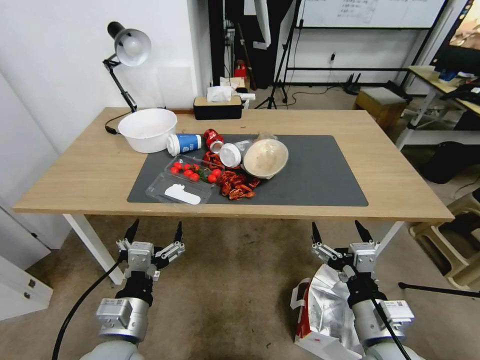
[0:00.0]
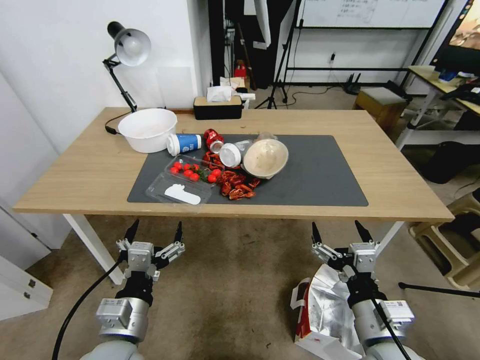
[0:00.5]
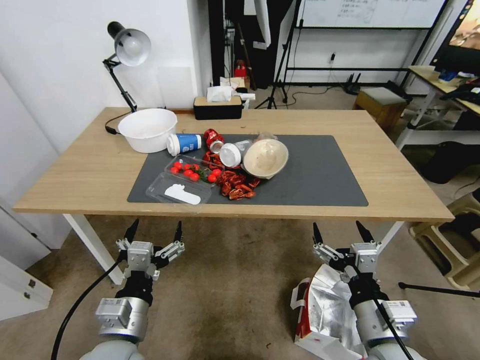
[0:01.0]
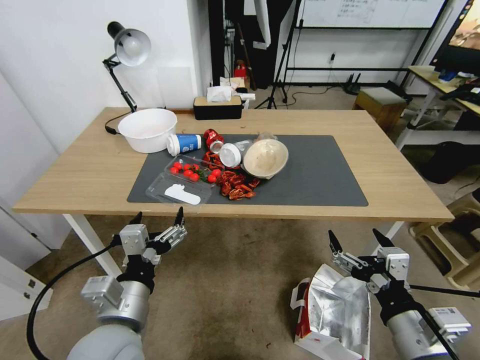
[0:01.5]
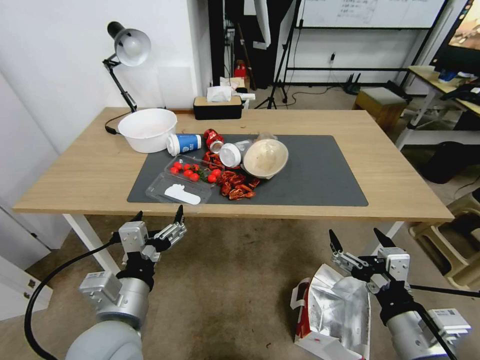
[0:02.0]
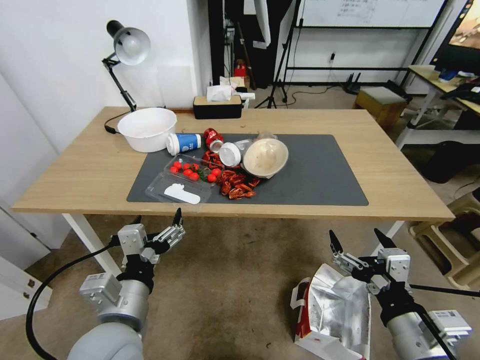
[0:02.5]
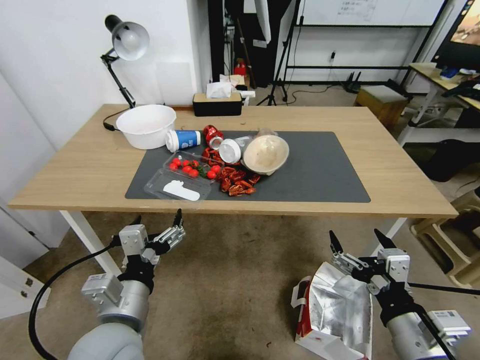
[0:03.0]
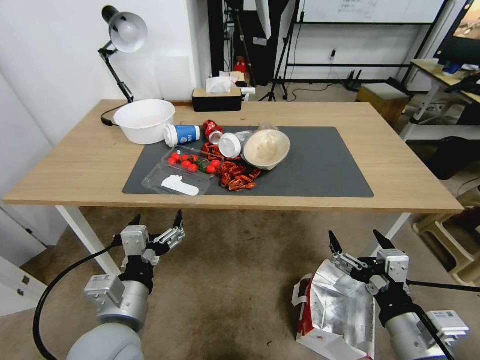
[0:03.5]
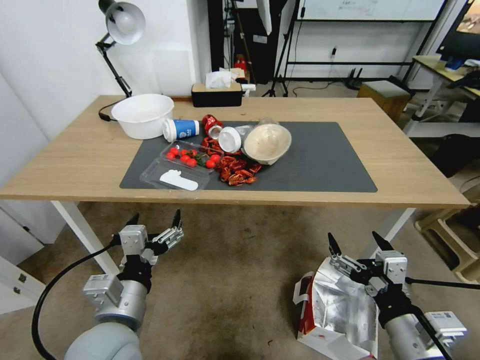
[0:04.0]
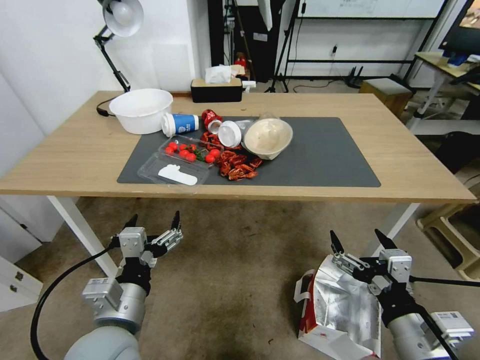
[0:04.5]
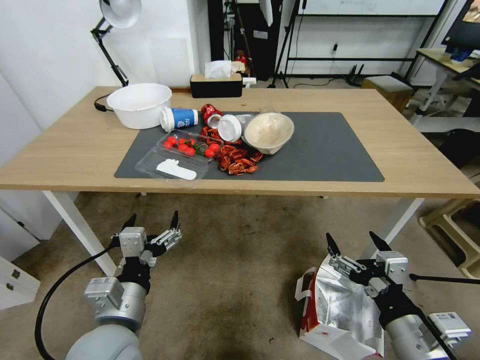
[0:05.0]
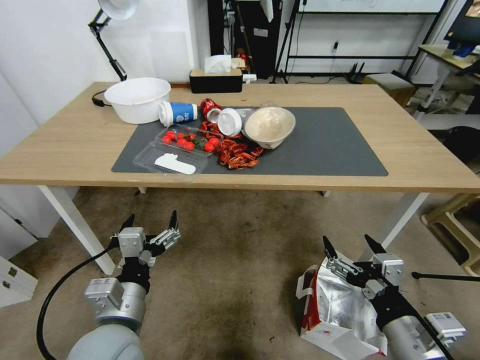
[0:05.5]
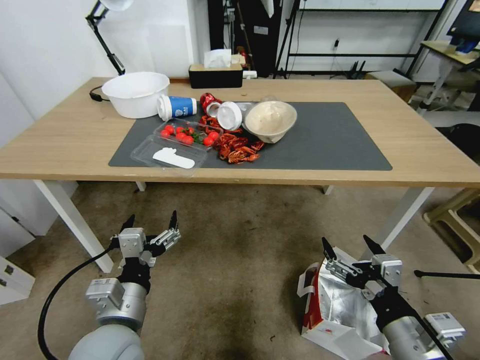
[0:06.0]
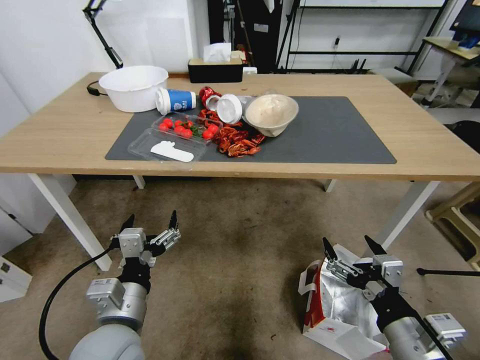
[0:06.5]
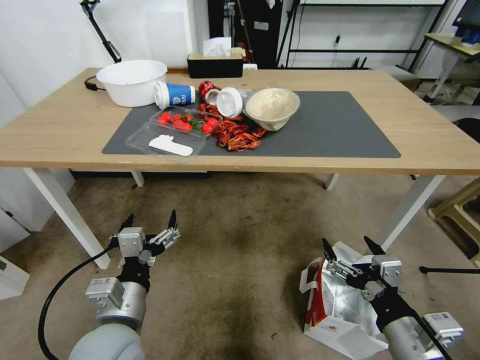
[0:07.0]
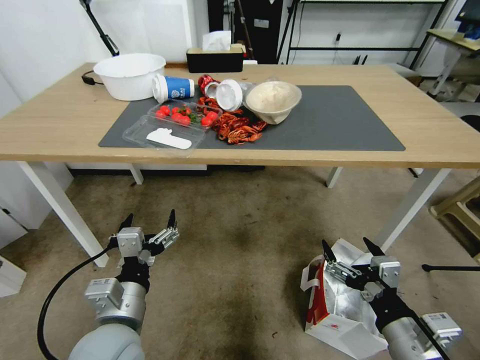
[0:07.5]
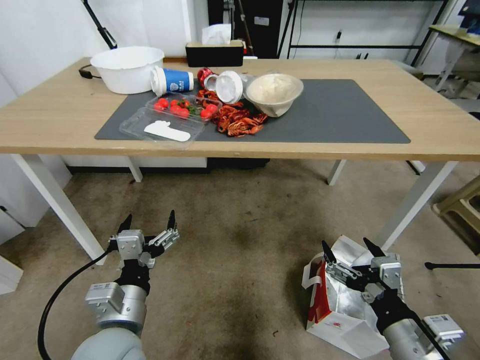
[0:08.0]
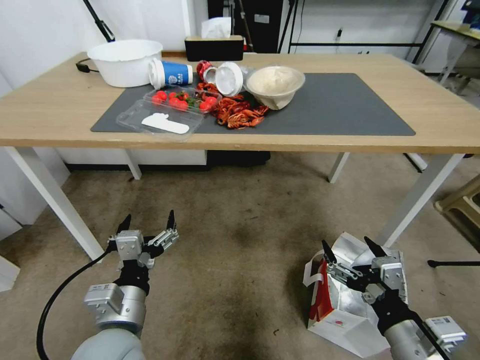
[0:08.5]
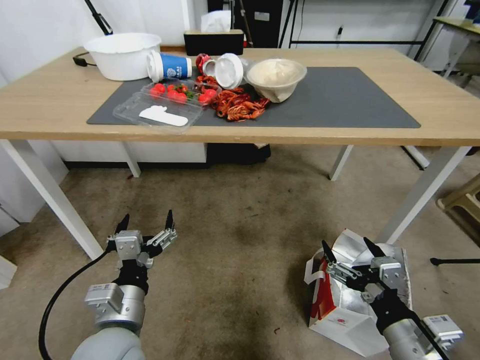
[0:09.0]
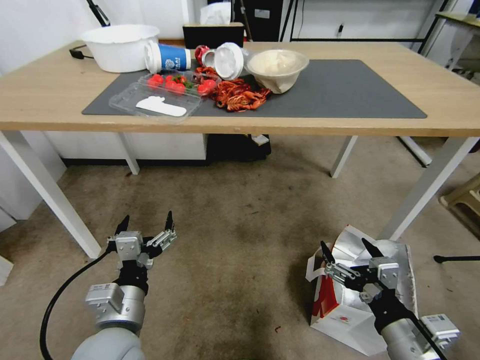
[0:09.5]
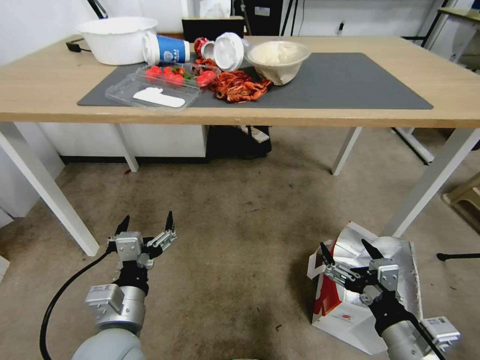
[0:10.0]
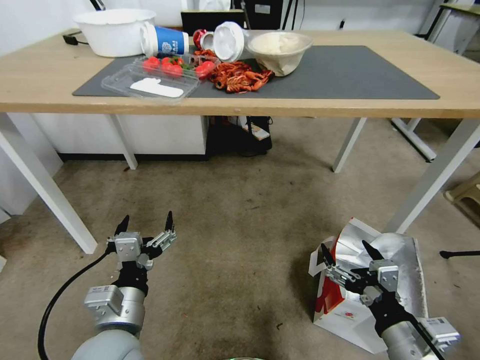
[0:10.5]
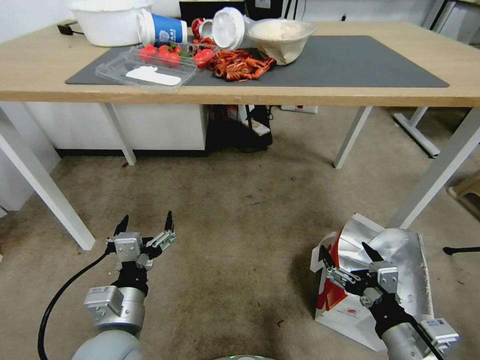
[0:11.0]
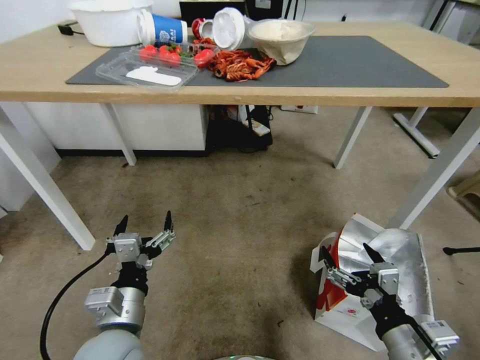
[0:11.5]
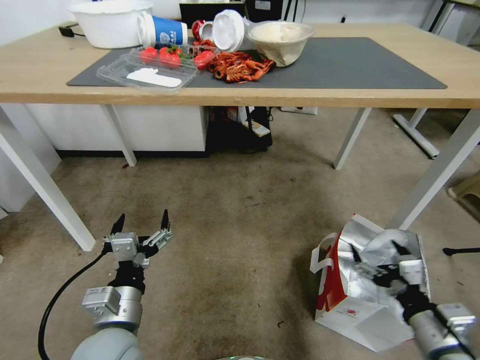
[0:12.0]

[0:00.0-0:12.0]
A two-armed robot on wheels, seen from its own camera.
Task of the whole recording: Pick up the food delivery bag from the floor and place it on the table.
0:10.0 to 0:12.0: The right gripper shifts approximately 5 cm to the right.

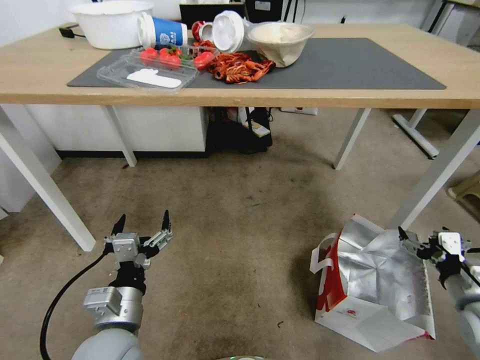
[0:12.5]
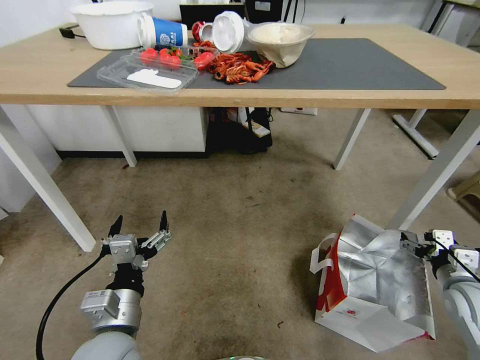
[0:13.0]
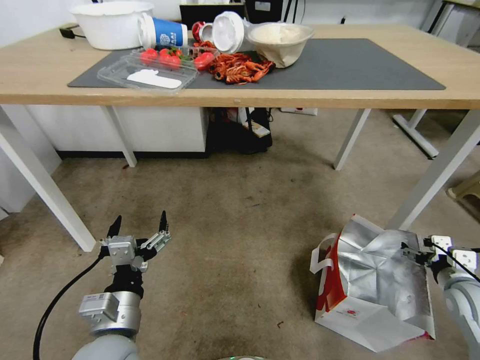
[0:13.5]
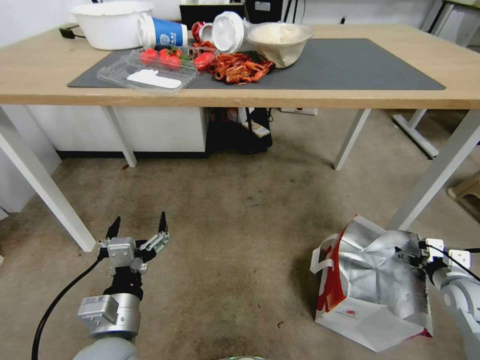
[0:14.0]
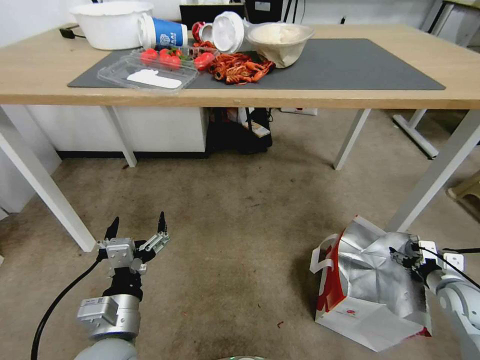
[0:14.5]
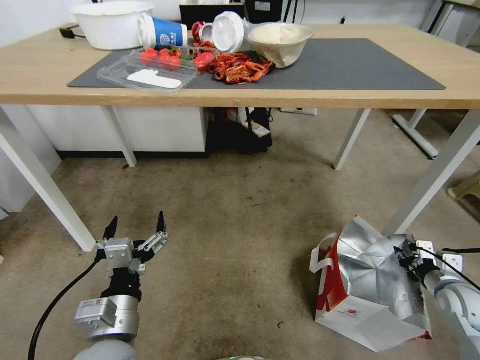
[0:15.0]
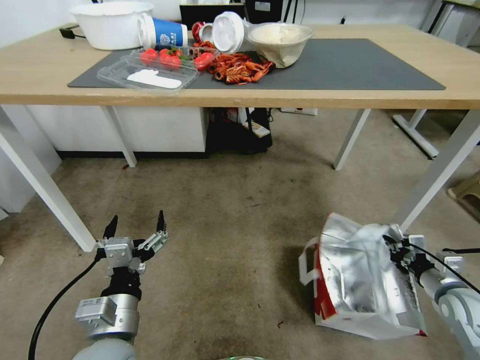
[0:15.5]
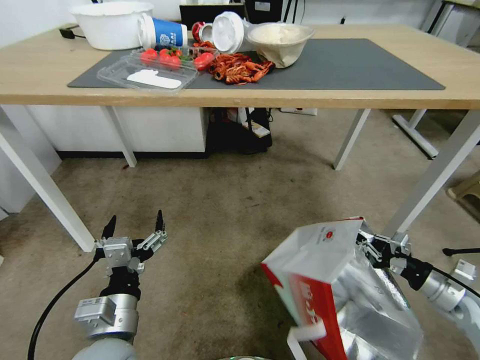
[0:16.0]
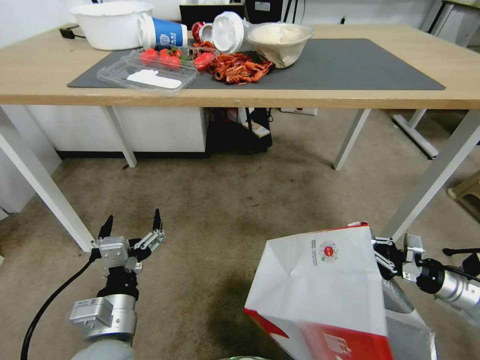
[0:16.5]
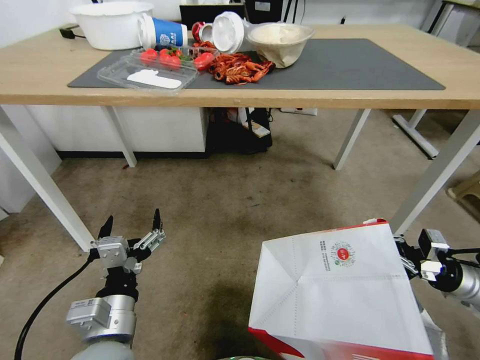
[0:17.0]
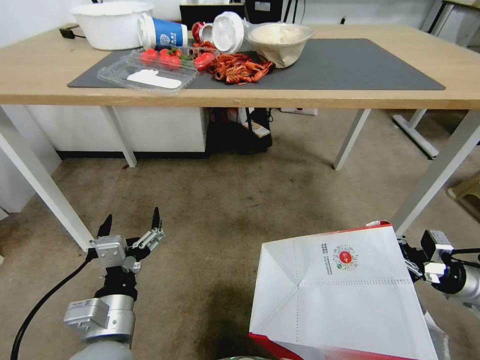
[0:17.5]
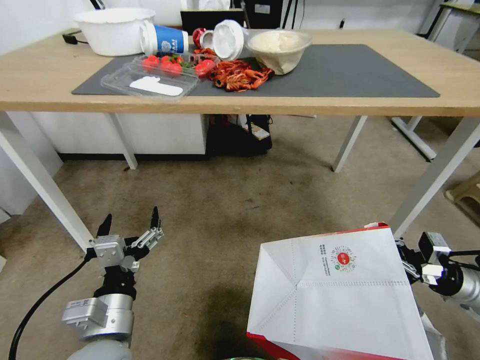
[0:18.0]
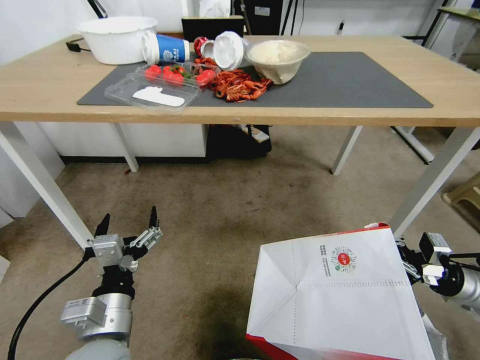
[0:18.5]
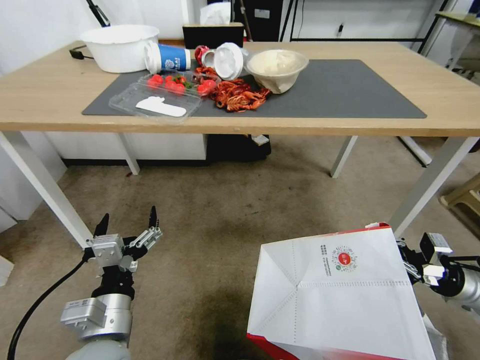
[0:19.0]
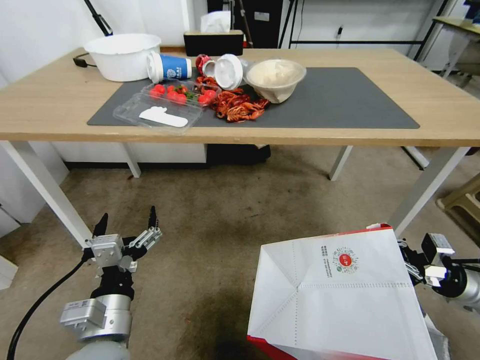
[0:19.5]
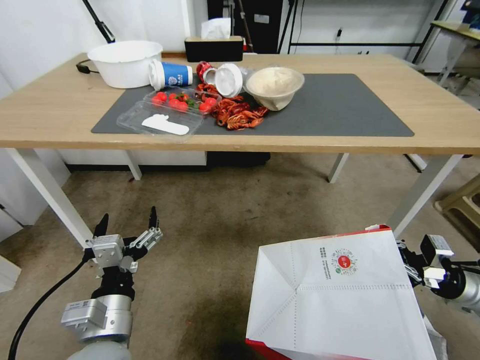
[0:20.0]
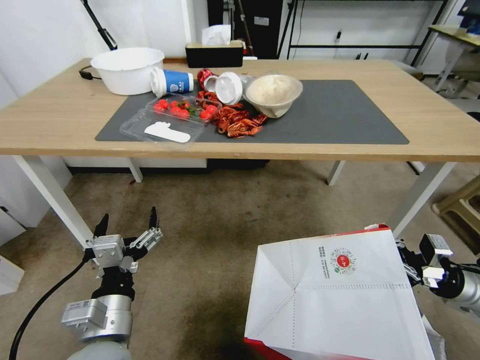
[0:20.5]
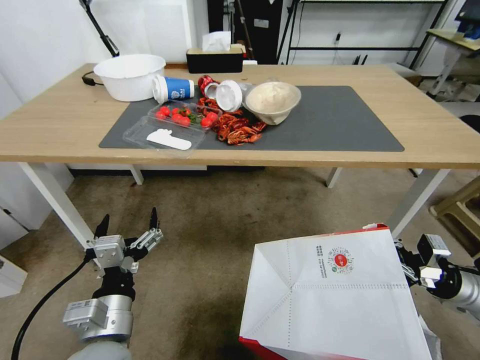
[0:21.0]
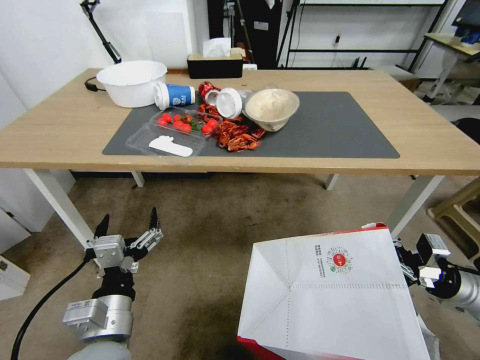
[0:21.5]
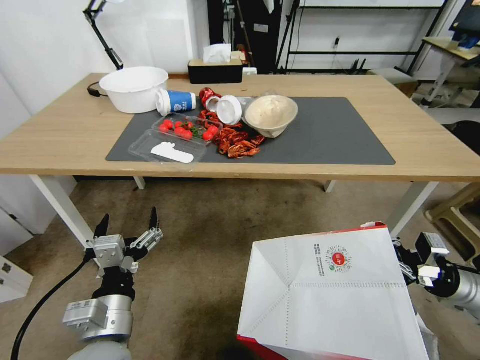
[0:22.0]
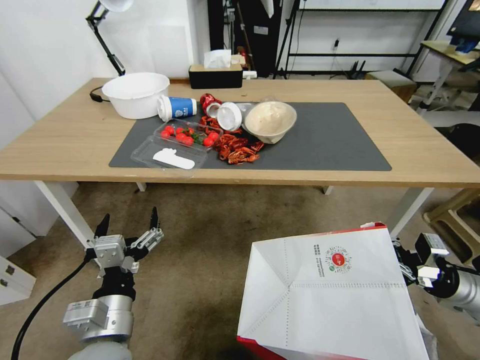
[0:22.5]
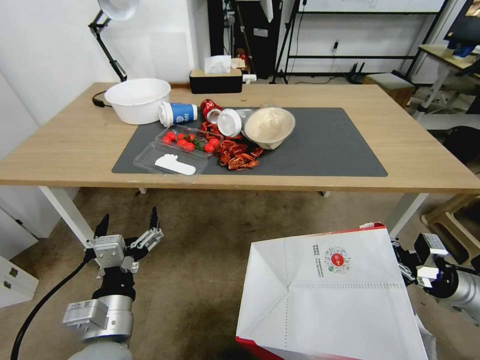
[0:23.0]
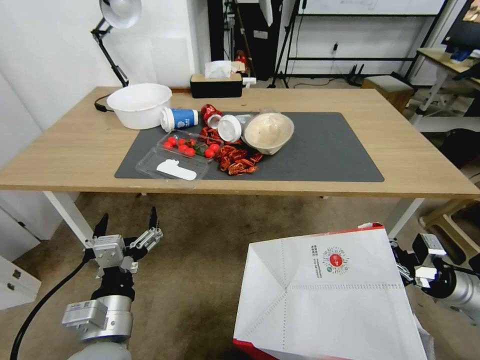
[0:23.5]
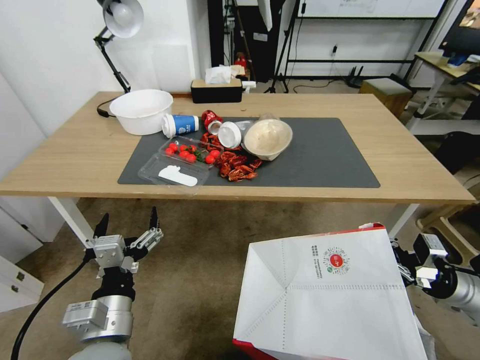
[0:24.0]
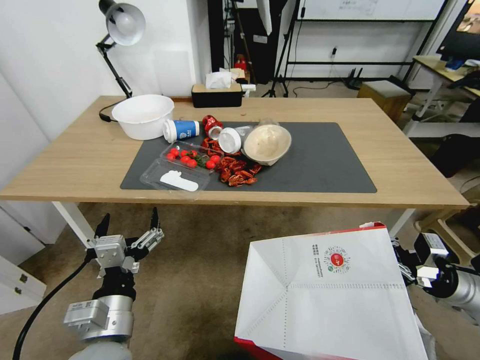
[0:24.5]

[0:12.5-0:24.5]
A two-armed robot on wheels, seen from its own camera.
Task of the whole recording: Pick up the food delivery bag from the floor and place it on the table.
0:12.5 to 0:14.5: The right gripper heads downward and forward, covering about 10 cm.
0:14.5 to 0:16.5: The right gripper changes place by roughly 5 cm, and closes up.

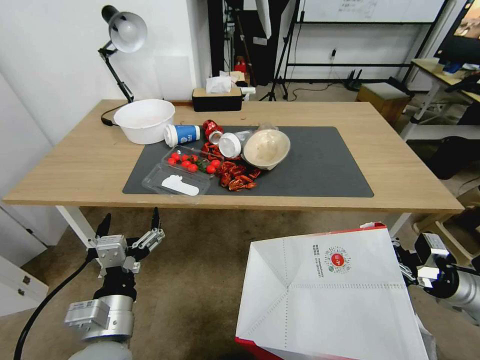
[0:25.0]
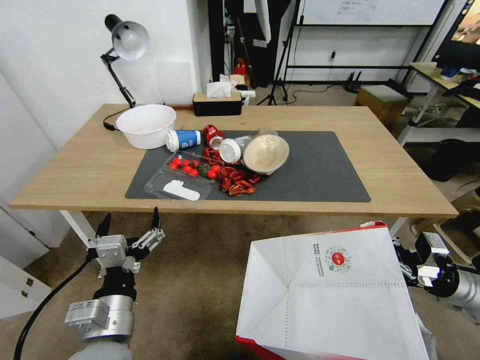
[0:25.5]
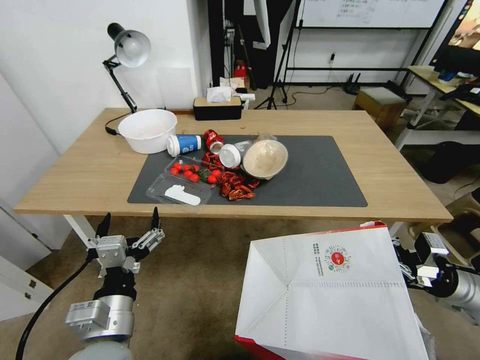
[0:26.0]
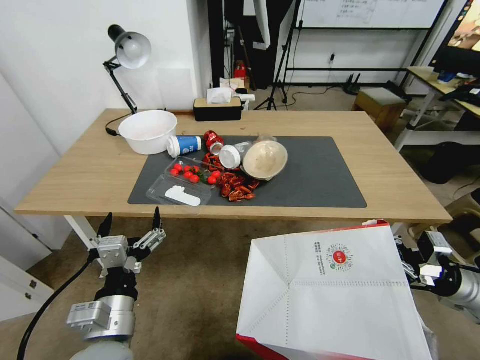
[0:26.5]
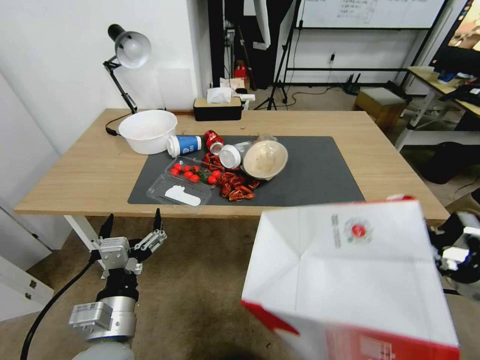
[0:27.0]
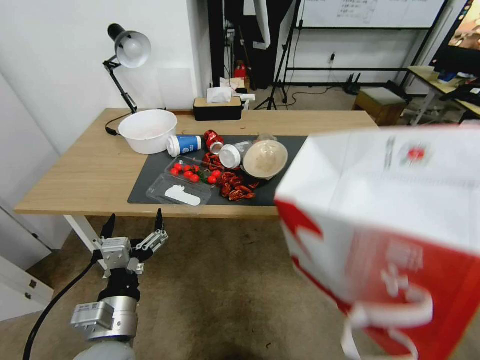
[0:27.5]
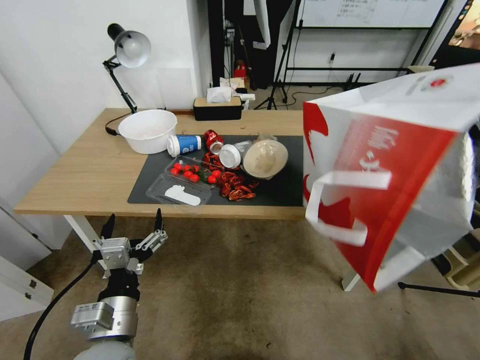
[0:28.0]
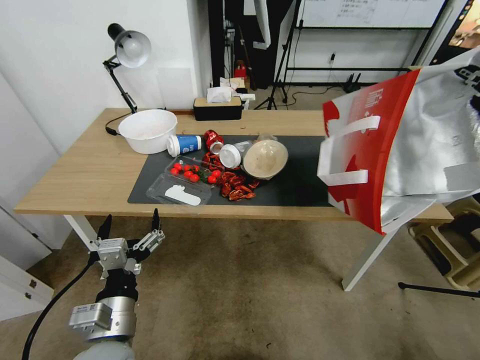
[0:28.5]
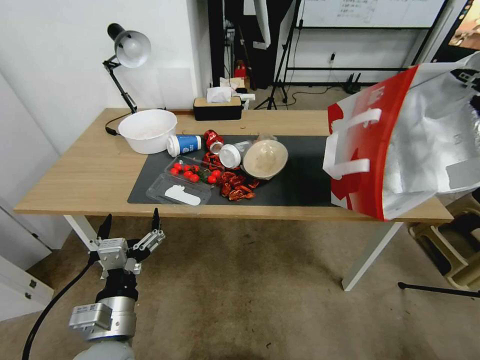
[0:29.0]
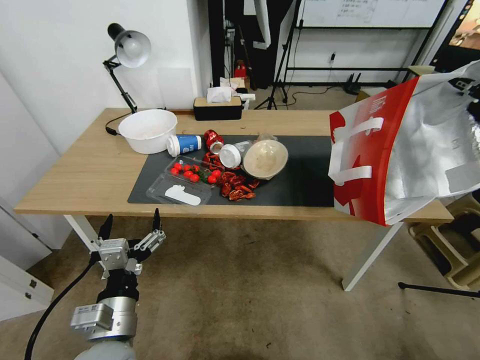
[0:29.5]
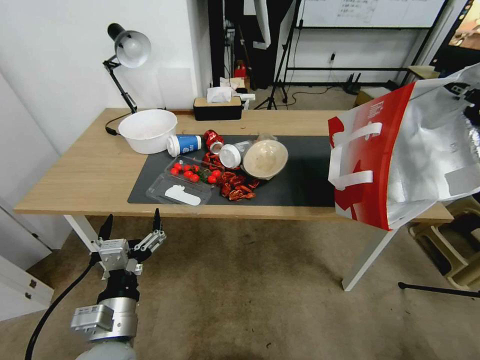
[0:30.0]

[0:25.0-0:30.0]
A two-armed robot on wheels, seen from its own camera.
Task of the whole recording: Pick up the food delivery bag from the floor and place it on the table.
0:25.0 to 0:27.5: The right gripper travels upward by some 5 cm.
0:27.5 to 0:30.0: The right gripper heads upward and forward, covering roughly 20 cm.
